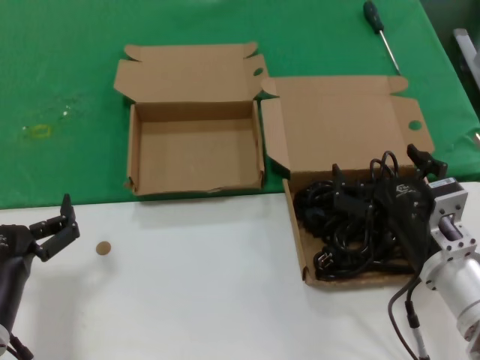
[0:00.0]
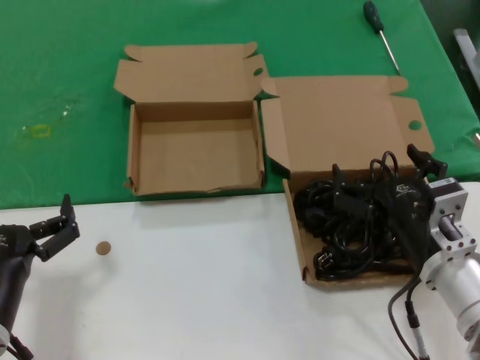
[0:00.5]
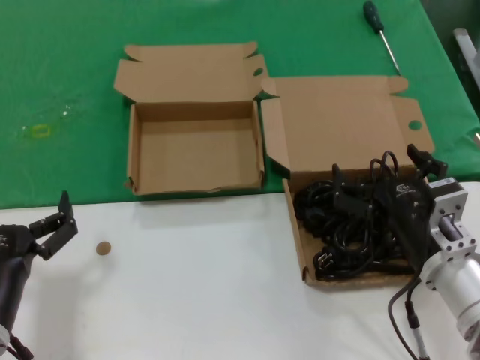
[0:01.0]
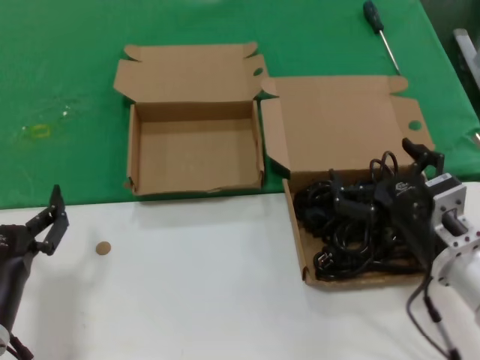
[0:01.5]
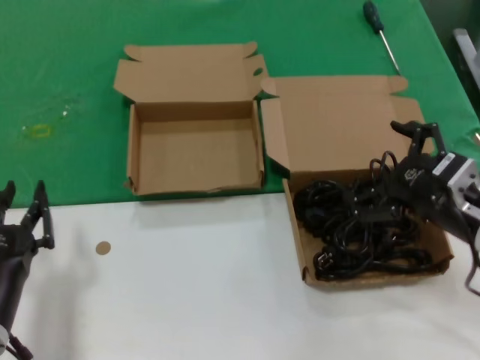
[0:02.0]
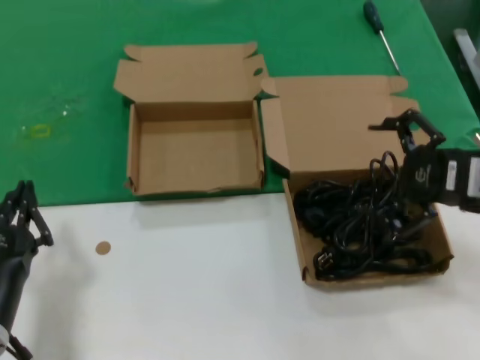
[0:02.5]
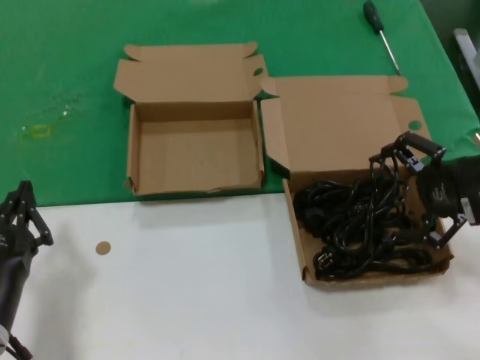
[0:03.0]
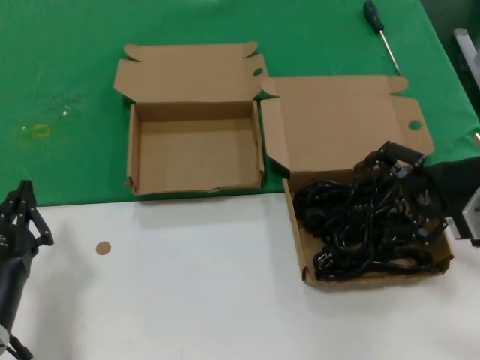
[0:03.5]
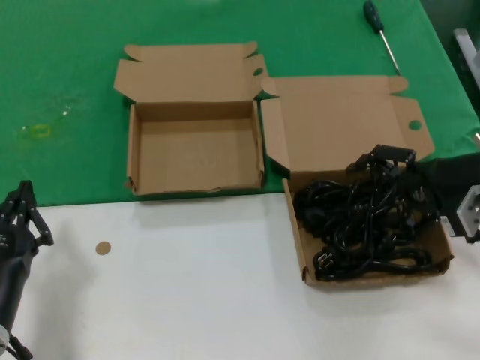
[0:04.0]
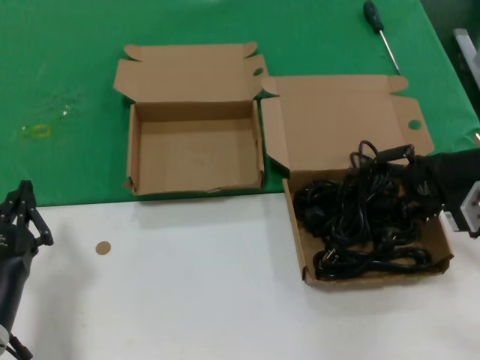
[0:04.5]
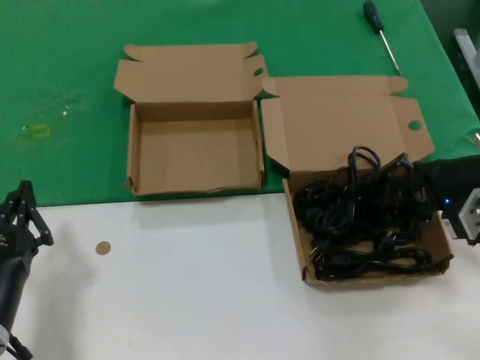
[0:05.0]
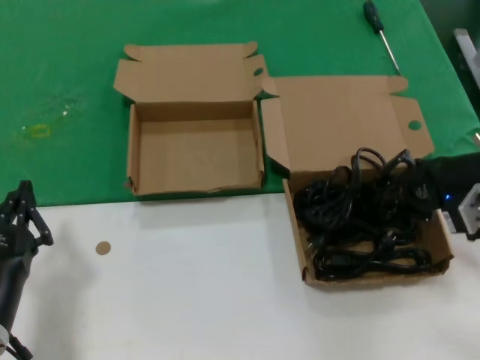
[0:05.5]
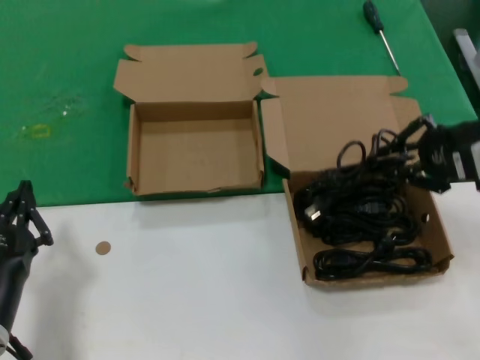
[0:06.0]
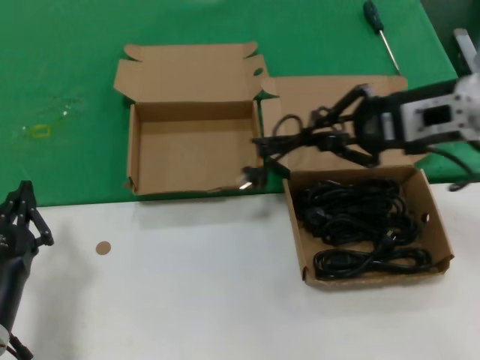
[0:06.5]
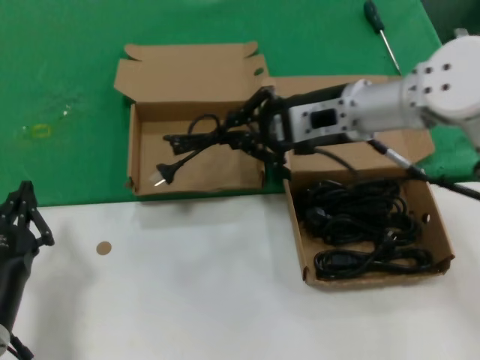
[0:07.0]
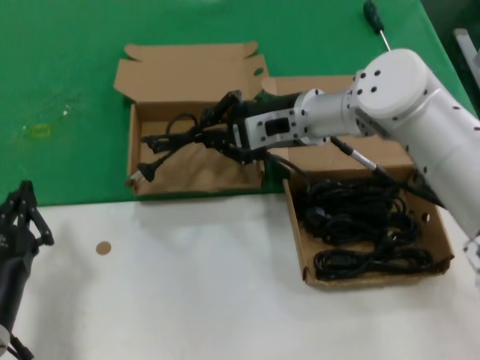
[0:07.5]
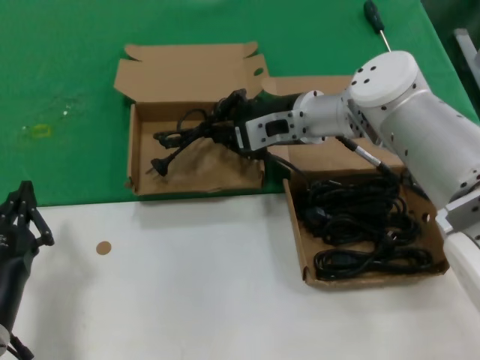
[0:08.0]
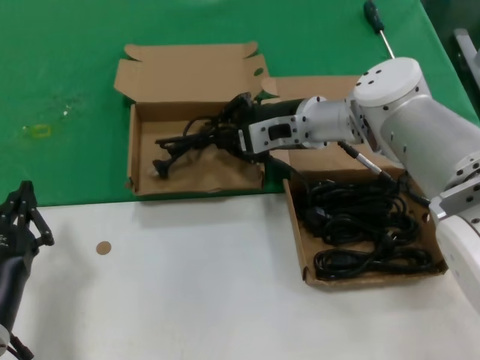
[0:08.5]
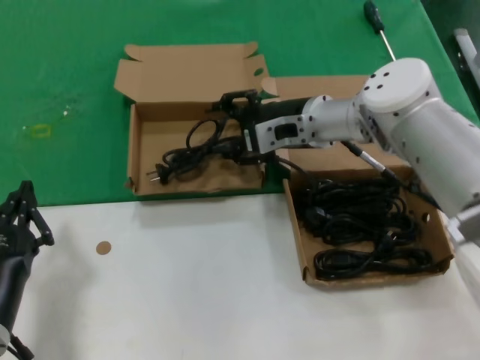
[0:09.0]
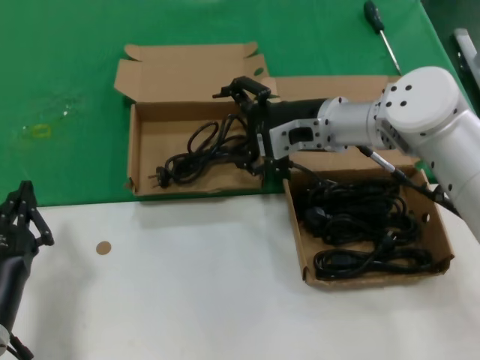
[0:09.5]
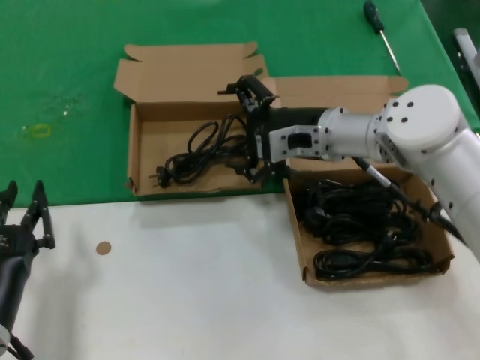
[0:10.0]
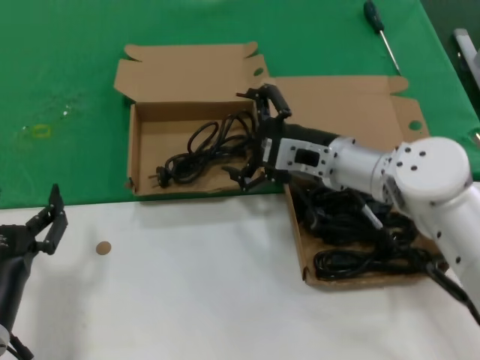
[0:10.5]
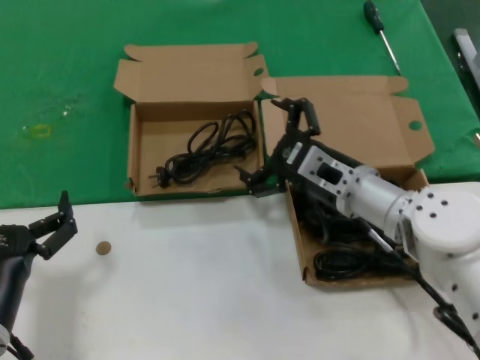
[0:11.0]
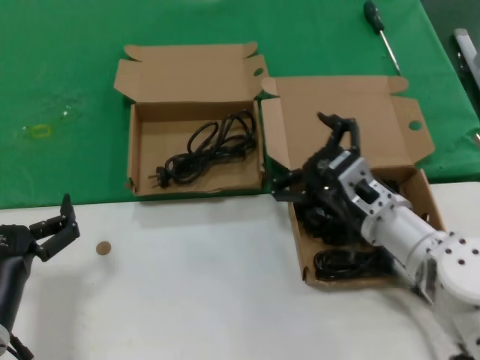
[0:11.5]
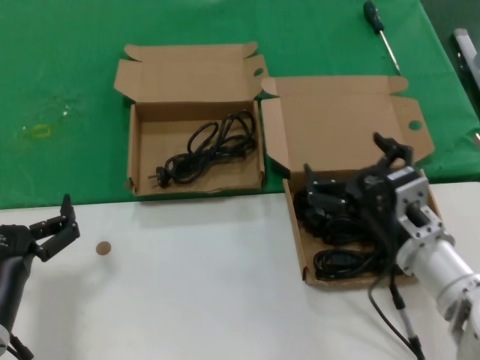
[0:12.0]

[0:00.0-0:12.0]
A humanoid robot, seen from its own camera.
Task of the whole recording: take the parts from the box containing them and put them into an empty box.
Step, 0.0 to 5.0 s: Grasp the data cable.
Step, 5.5 to 9.0 s: Place the data cable in the another box.
0.0 to 2.0 s: The right hand is displaced to the right and upward by approximately 10 cm.
2.0 to 4.0 s: The right hand travels forward, to the right and upward by some 10 cm.
4.0 to 6.0 s: The right hand shifts about 5 cm upward.
6.0 to 8.0 s: The right hand shifts approximately 25 cm to the left and forward.
8.0 to 10.0 s: The right hand shifts by about 5 cm.
10.0 to 12.0 s: The right hand is displaced backward and downward by approximately 20 cm.

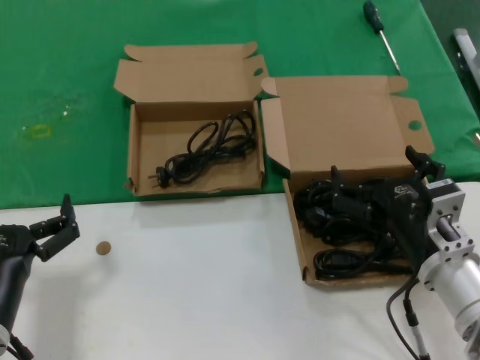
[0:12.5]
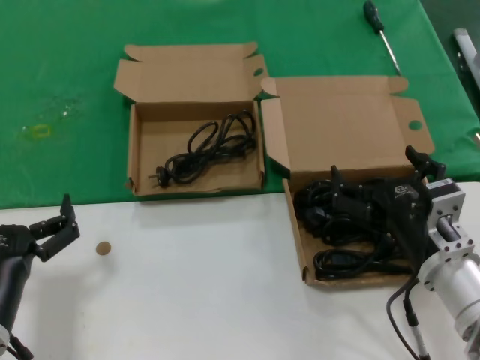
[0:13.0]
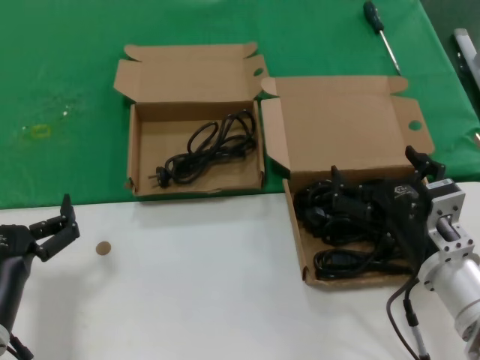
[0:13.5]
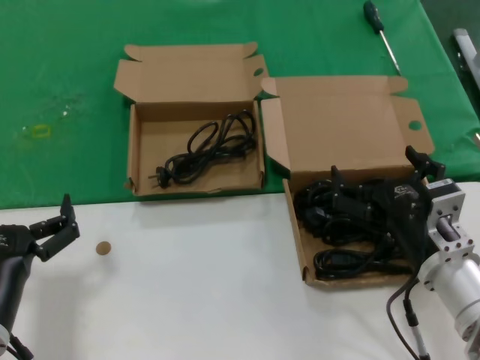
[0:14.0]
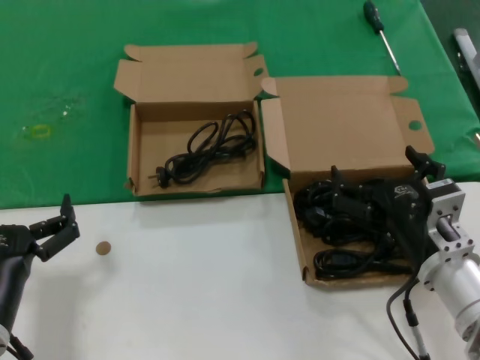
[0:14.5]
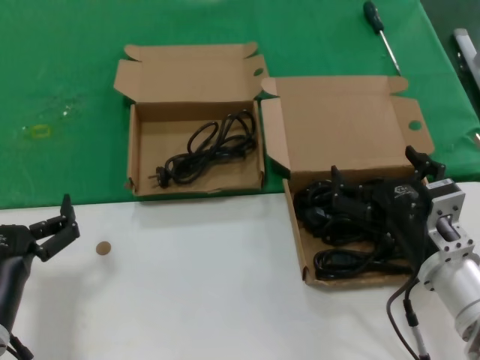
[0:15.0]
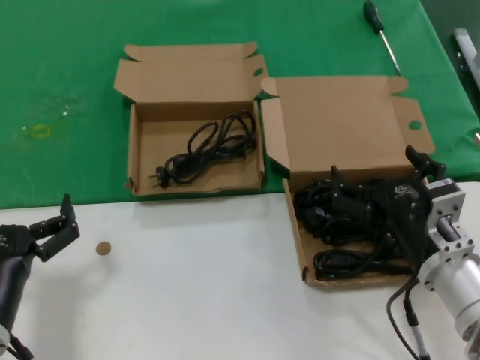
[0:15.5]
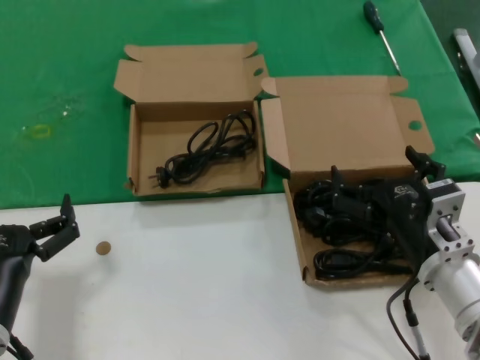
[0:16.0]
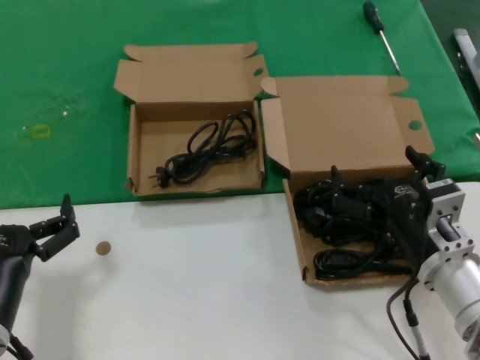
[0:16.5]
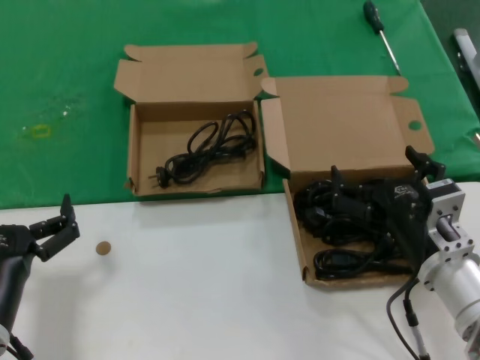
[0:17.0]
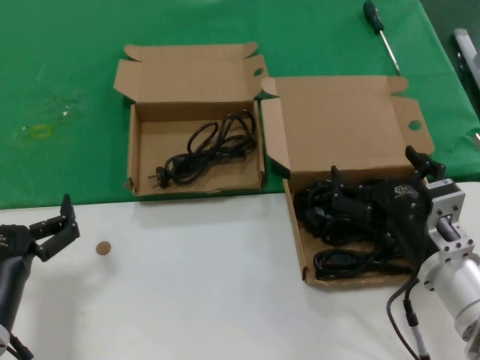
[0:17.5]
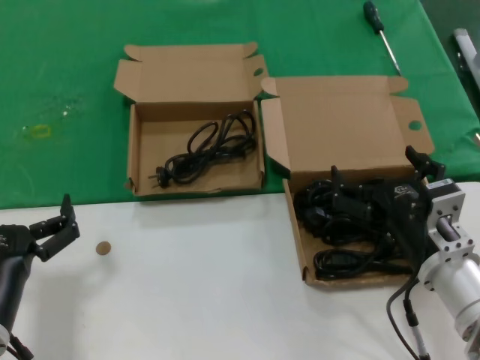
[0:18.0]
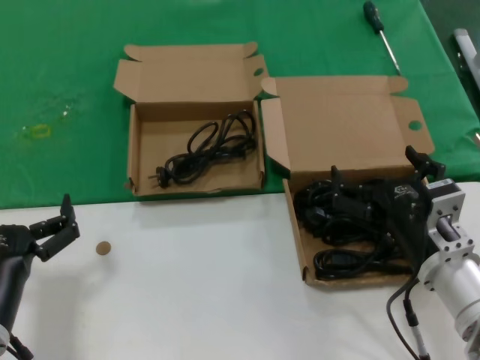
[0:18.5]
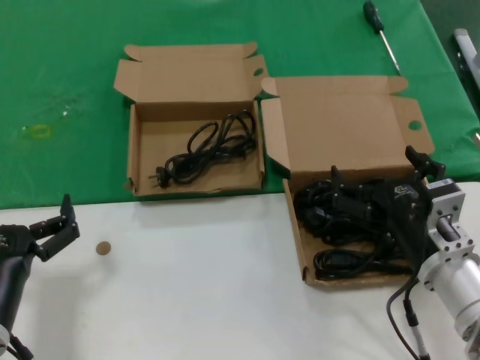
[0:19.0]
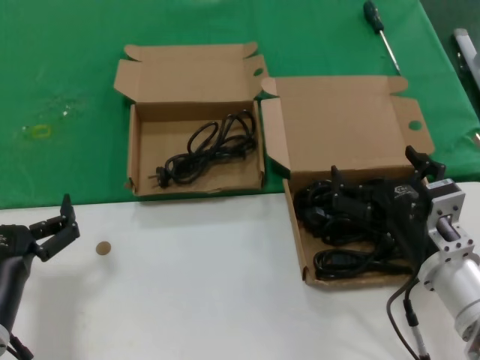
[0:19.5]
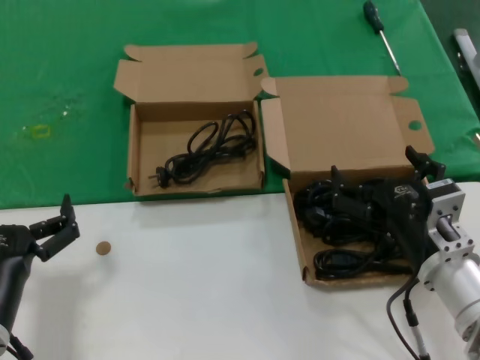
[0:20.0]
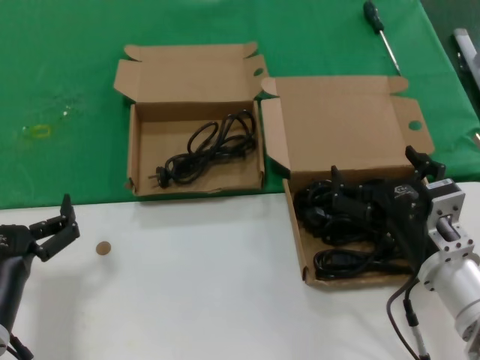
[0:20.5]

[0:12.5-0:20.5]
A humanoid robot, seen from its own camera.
Task of the whole recording: take the parts from the box containing them and put them into an empty box.
12.5 to 20.5 s: Neither hand changes place.

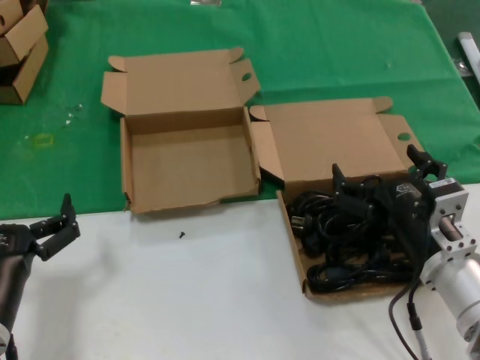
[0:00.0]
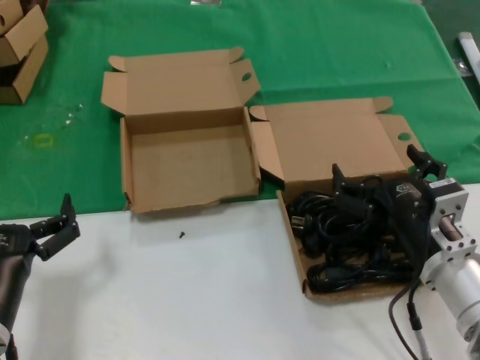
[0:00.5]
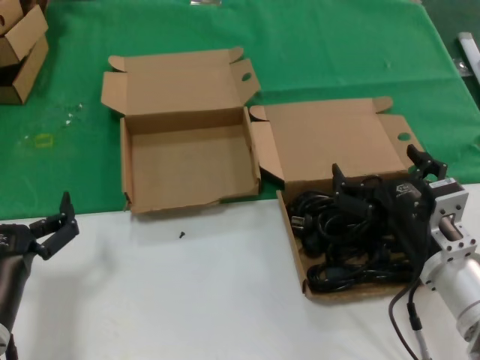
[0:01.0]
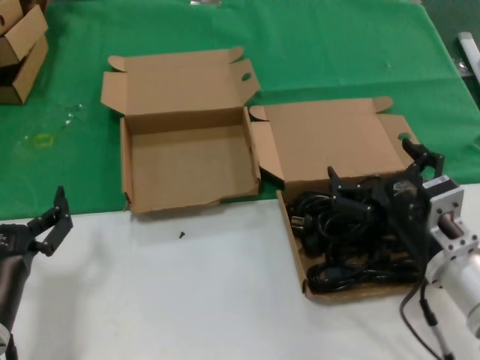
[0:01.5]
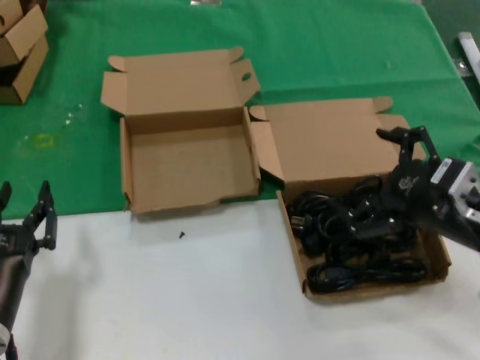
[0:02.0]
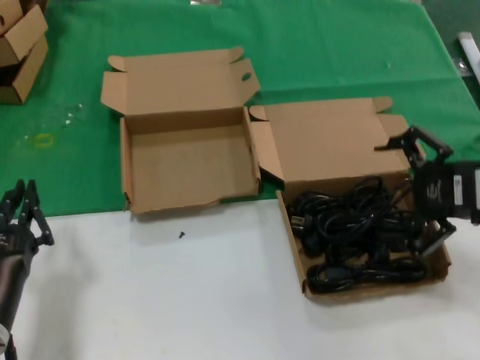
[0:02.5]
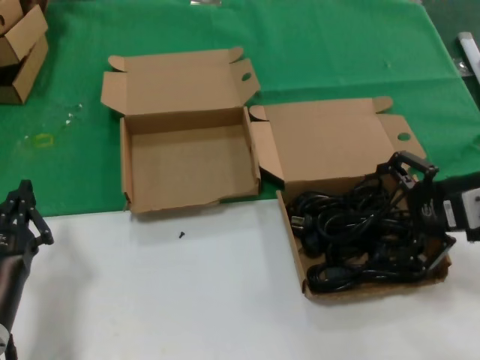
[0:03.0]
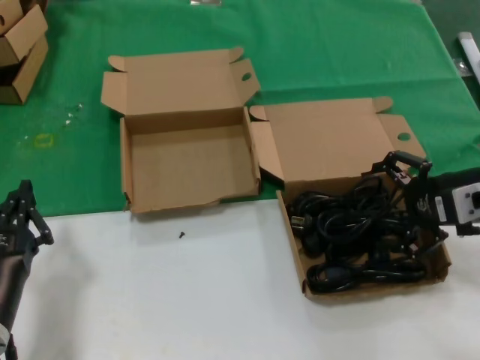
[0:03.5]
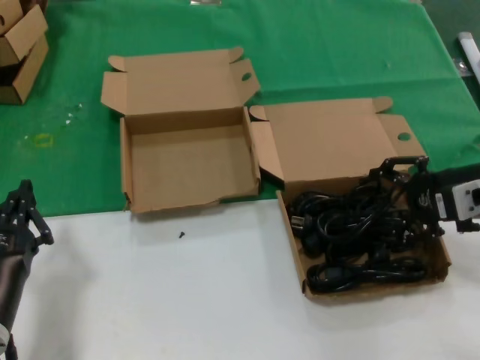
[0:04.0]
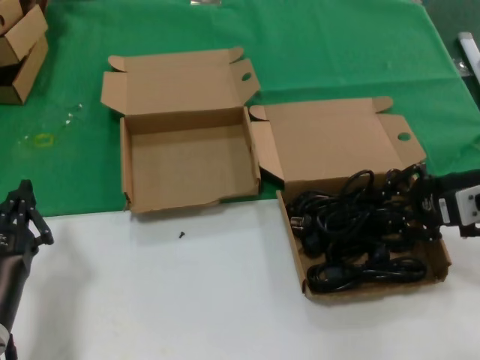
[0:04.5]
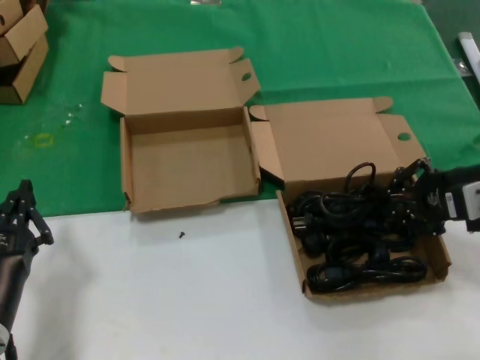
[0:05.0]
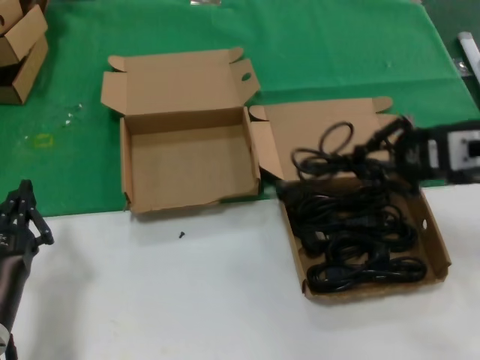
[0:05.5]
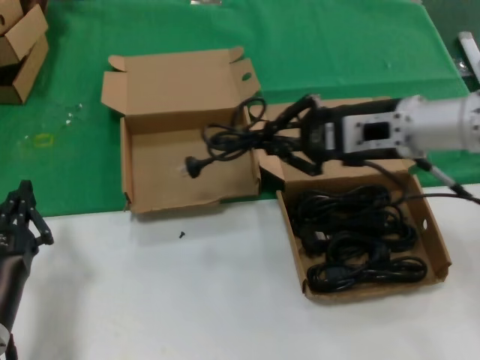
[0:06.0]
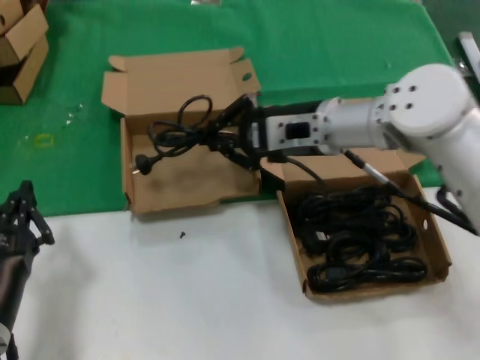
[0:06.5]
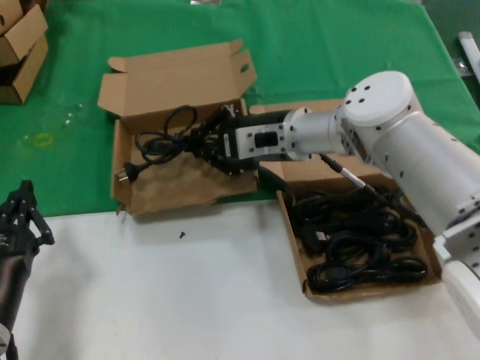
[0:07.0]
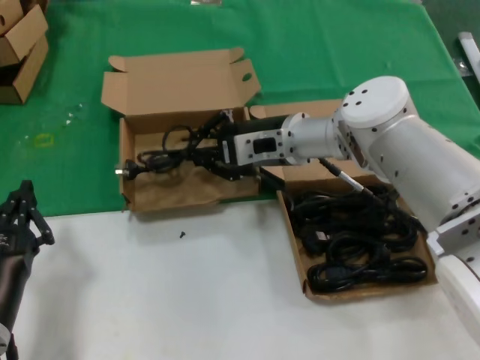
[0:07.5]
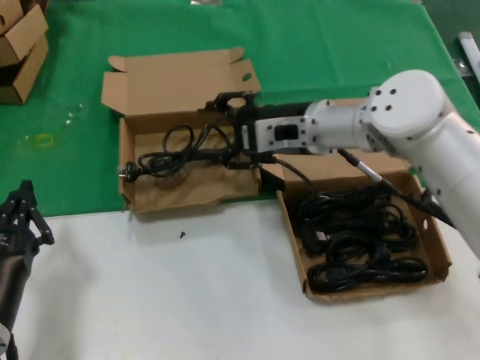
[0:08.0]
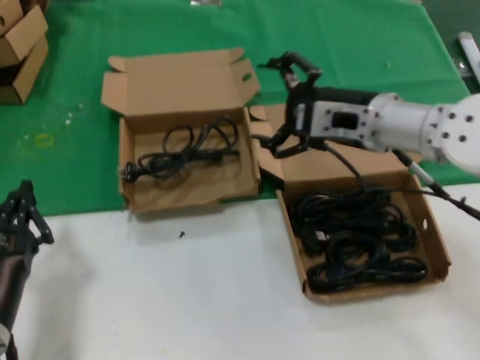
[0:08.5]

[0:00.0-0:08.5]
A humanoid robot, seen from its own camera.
Task of the whole recording: take the parts from the box containing them and put them into an empty box.
Step, 0.0 to 4.5 s: Grasp the data cable.
Step, 5.0 to 7.0 s: Place the data cable in the another box.
0.0 to 2.0 s: The right hand goes roughly 10 cm upward and to the right.
2.0 to 4.0 s: The right hand heads forward and to the right, covering some 10 cm.
4.0 to 6.5 s: The right hand shifts approximately 20 cm to the left and forward.
6.5 to 8.5 s: The right hand ends up about 5 cm from where it was.
